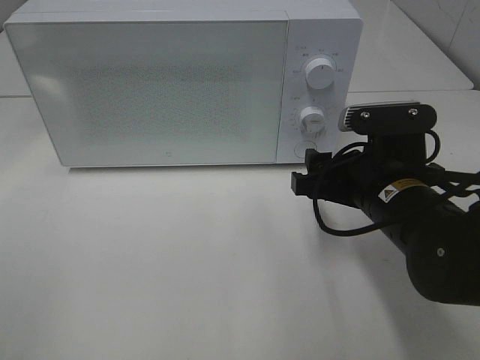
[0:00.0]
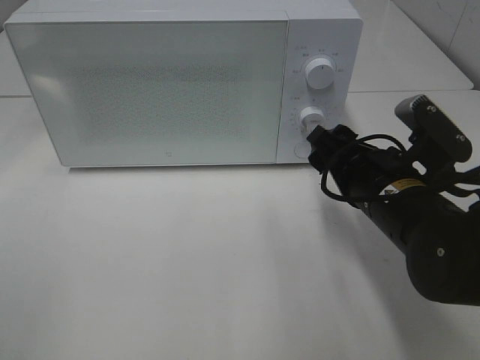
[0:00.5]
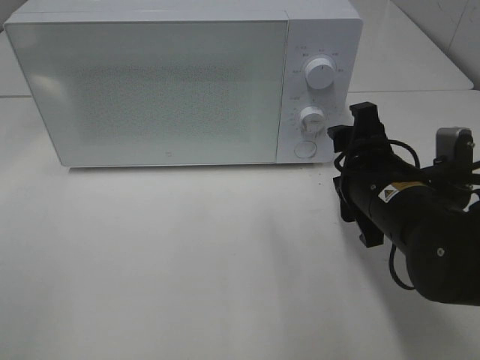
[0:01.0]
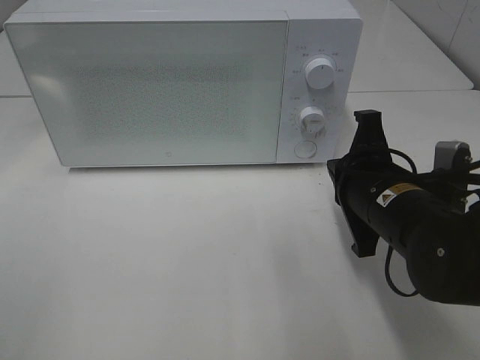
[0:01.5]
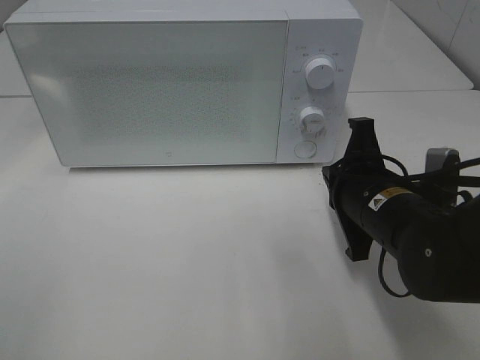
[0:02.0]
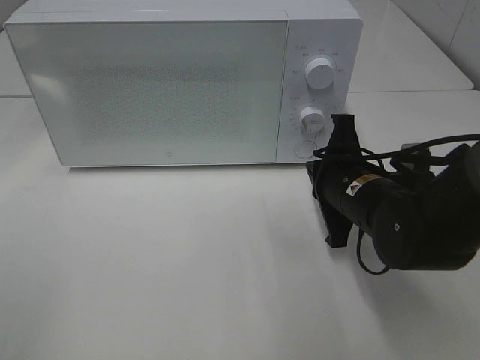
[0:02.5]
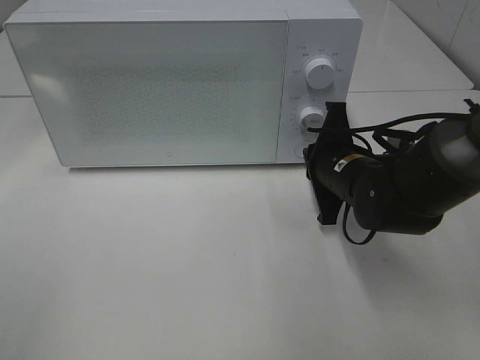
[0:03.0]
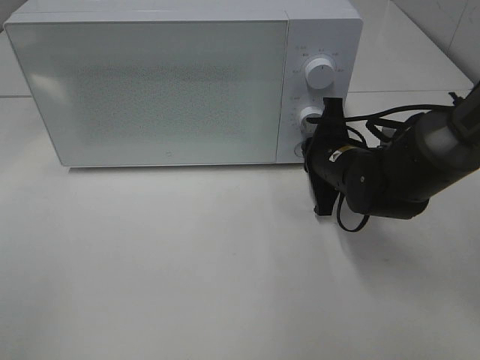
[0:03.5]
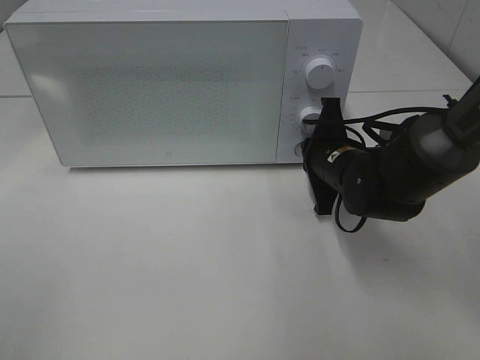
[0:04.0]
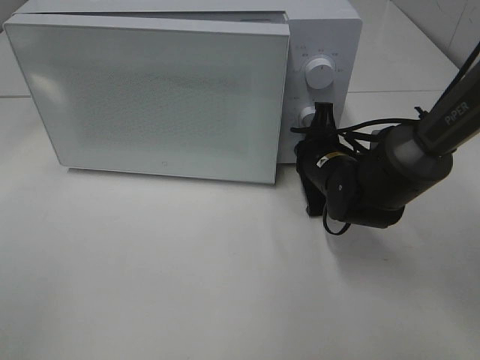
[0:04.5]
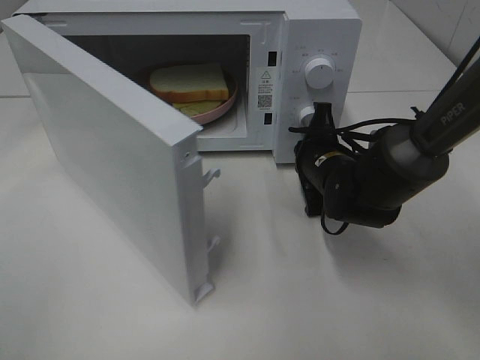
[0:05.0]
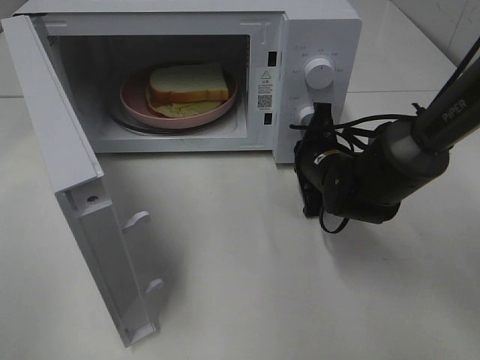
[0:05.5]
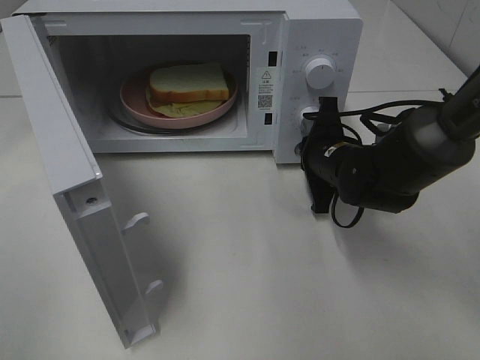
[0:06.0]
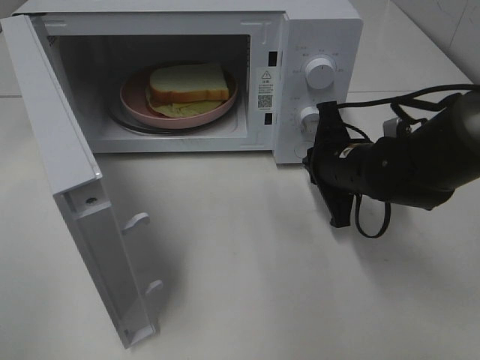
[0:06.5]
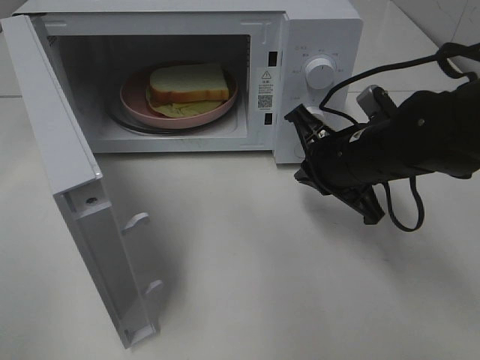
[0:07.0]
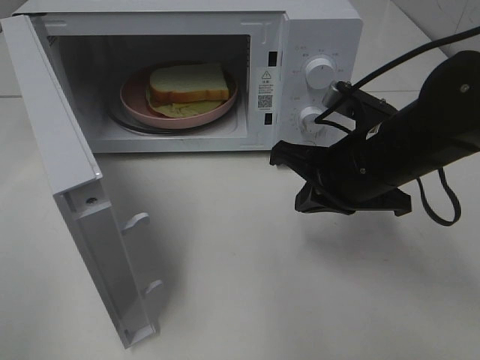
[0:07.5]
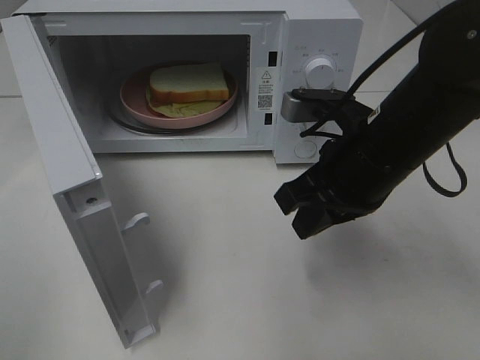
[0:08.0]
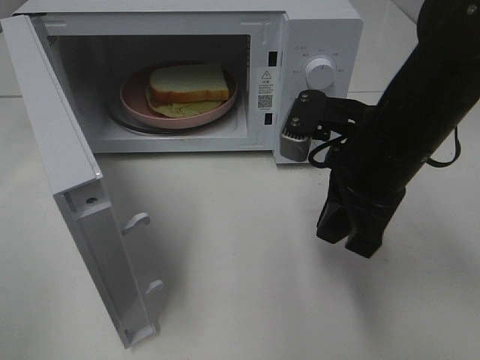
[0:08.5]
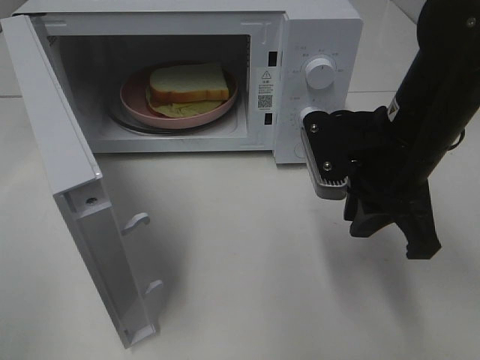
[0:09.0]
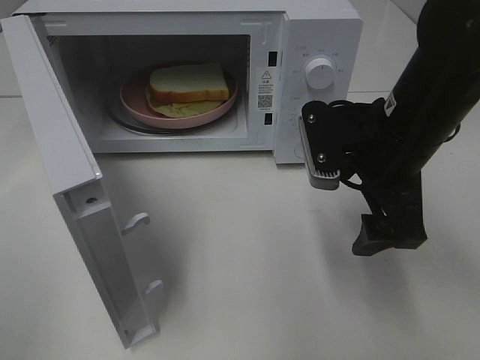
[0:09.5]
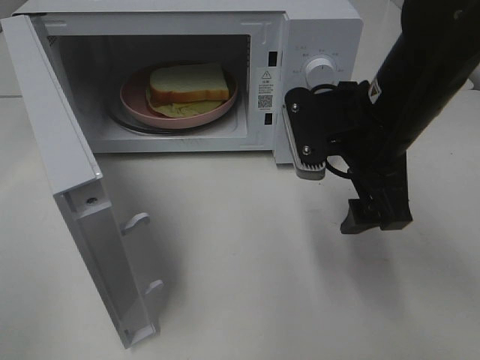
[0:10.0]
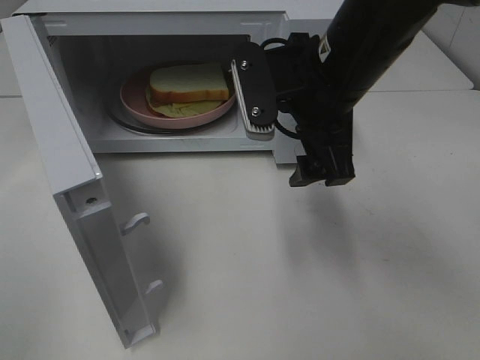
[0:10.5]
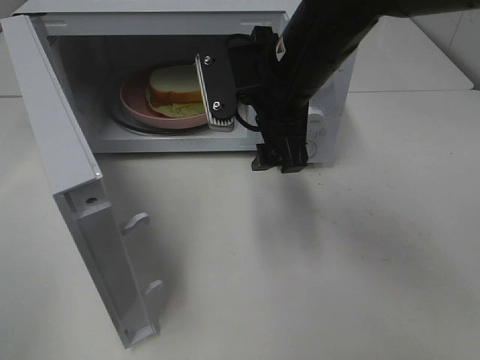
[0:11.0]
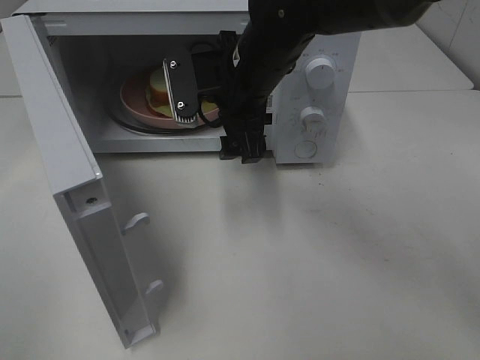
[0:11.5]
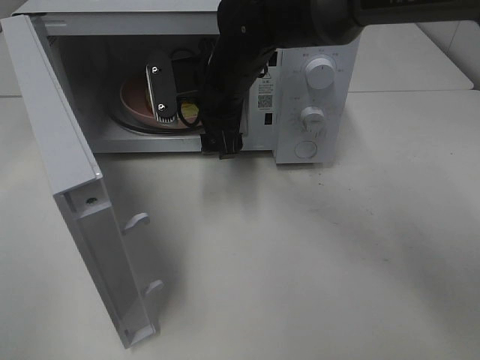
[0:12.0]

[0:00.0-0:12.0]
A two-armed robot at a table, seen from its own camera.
Task of the whole recording: Heat Sandwich.
Step, 0:00.0 to 0:06.0: Right hand: press the switch.
0:00.0 to 0:02.0: The right gripper closes.
0:02.0 to 0:04.0: The right gripper shifts about 10 cm forward.
0:06.0 to 0:08.0: The right gripper goes some 15 cm upward and backward.
0:08.0 to 0:10.0: The right gripper opens its fingers.
0:10.0 to 0:12.0: The right gripper travels to the left and forward by some 20 cm.

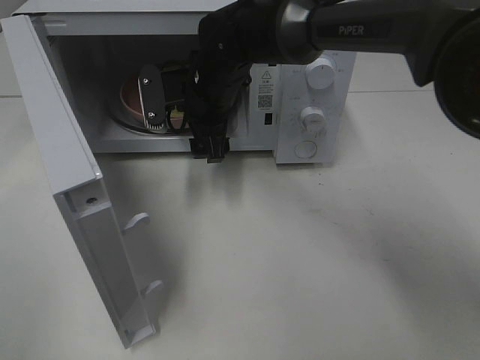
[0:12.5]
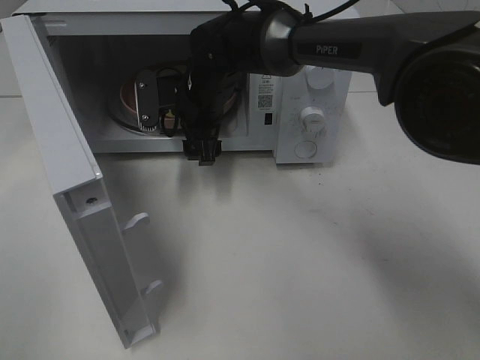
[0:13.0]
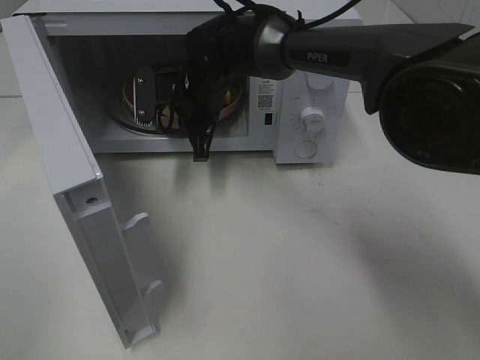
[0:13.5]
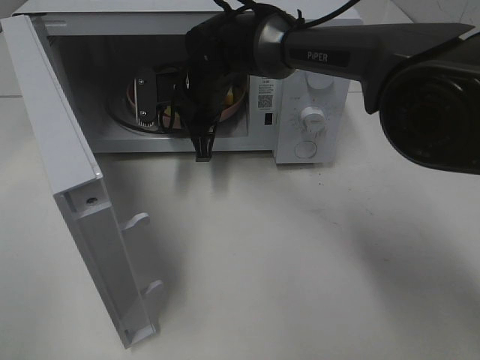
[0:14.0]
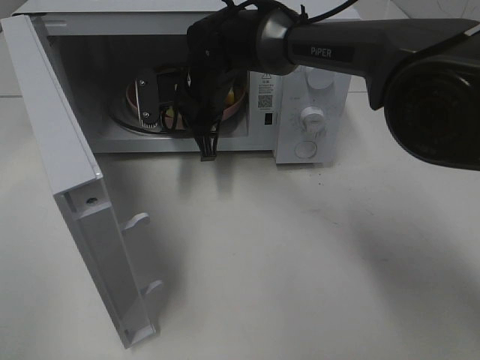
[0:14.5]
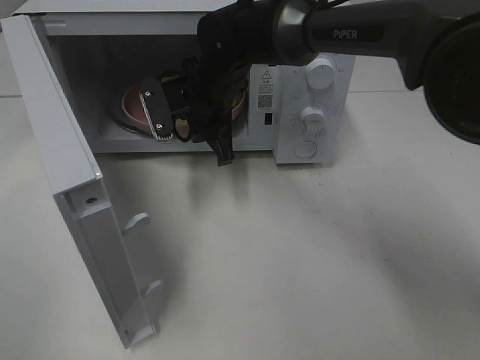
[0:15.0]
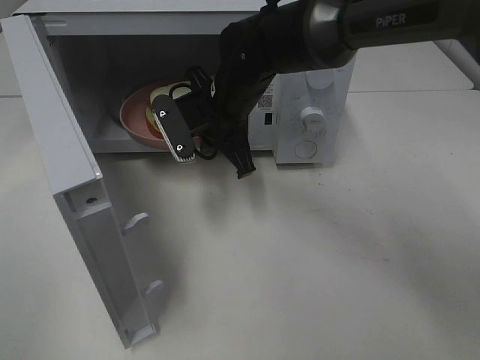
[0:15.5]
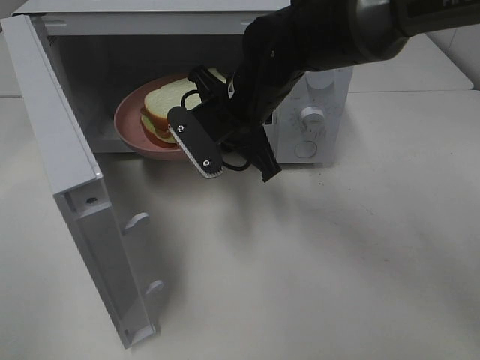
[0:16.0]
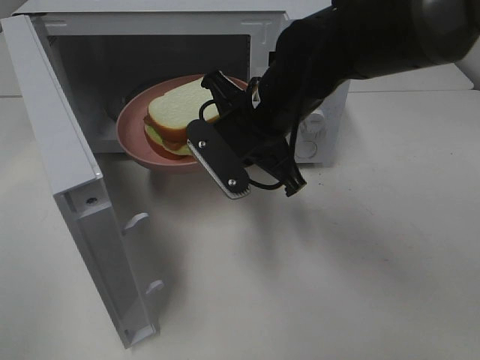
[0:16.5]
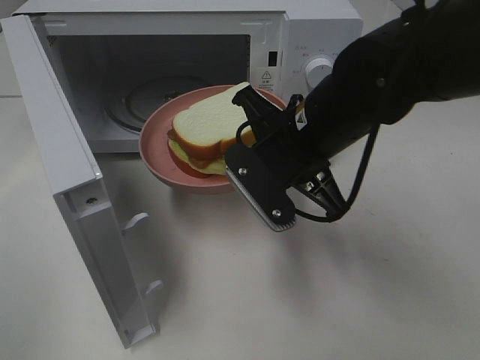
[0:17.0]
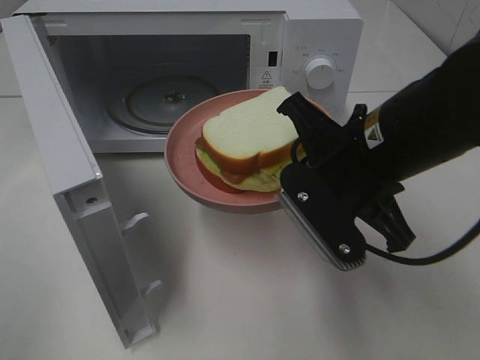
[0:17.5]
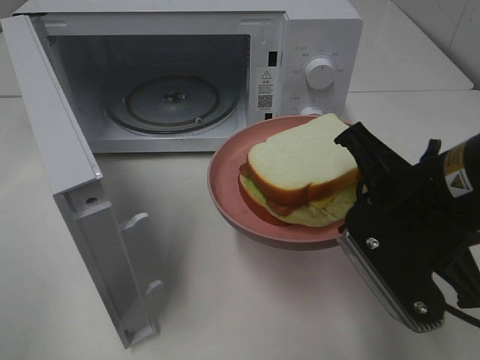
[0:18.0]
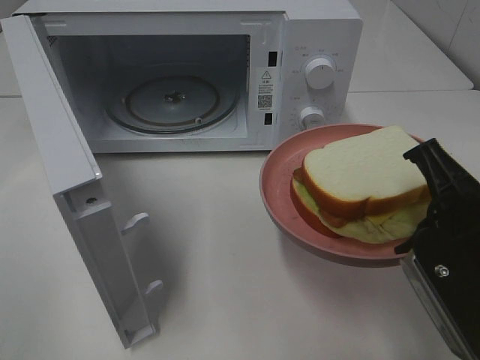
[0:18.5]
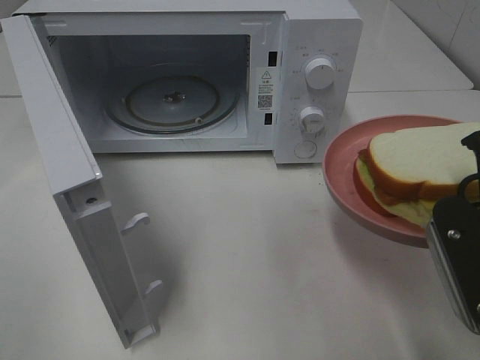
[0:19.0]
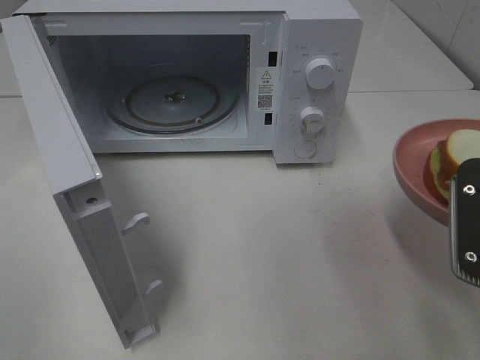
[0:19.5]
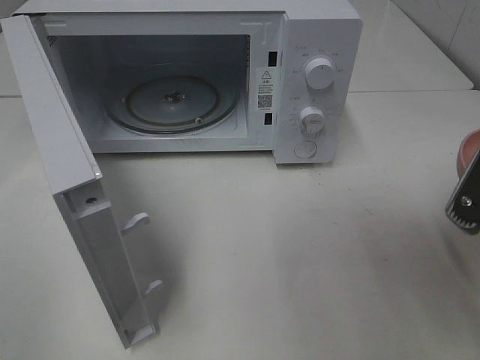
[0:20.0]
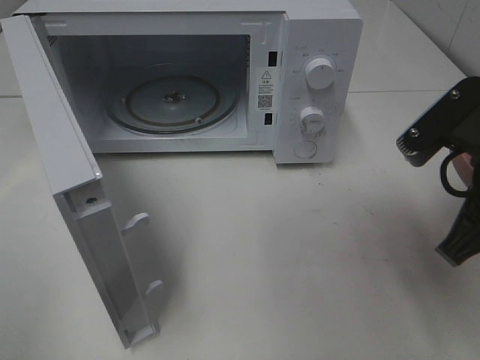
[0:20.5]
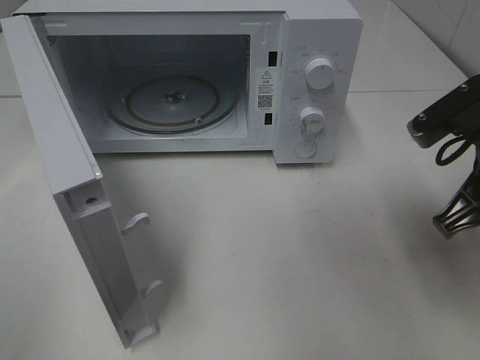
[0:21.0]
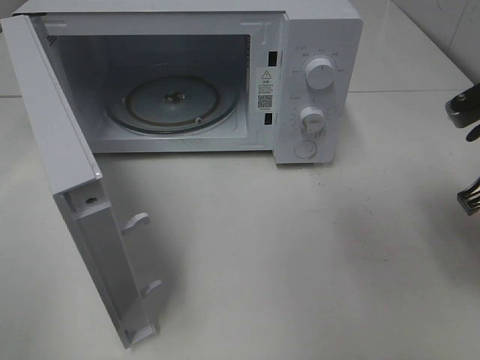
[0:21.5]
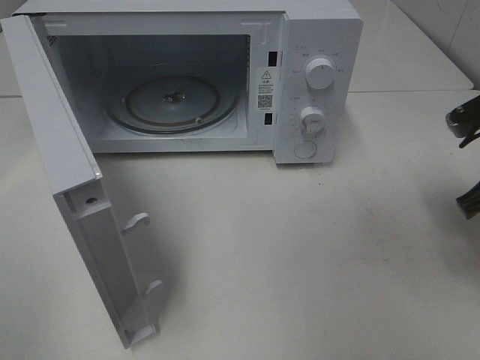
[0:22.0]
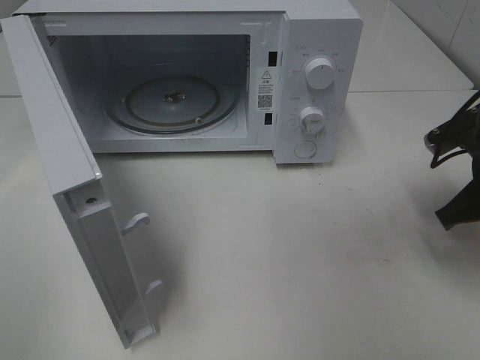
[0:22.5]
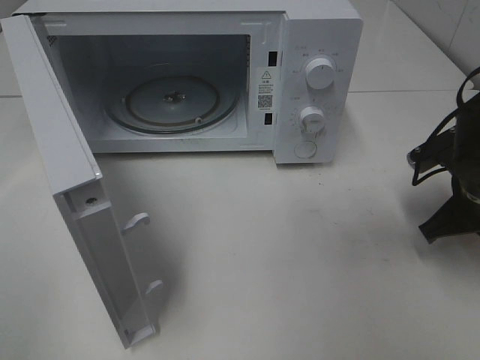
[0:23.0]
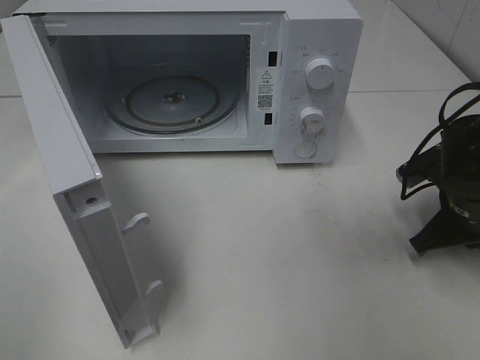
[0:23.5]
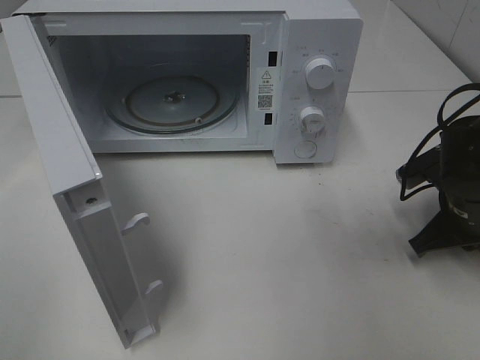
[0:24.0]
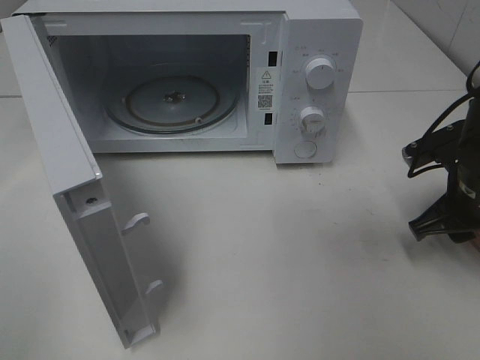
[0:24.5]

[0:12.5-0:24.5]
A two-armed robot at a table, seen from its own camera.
Task of the whole recording: Heat Sandwich.
Step, 0:14.0 to 0:24.0: Right hand: place the plate on the table.
0:12.5 to 0:14.5: The right gripper closes up.
0:14.5 to 0:16.5: The right gripper travels backward and to the right by some 15 cm.
0:16.5 to 0:18.5: The right gripper travels backward and to the right by some 25 cm.
0:20.5 to 0:22.5: The right gripper shifts approximately 15 cm forward, downward and to the right.
0:22.5 to 0:24.5: The right gripper opens up.

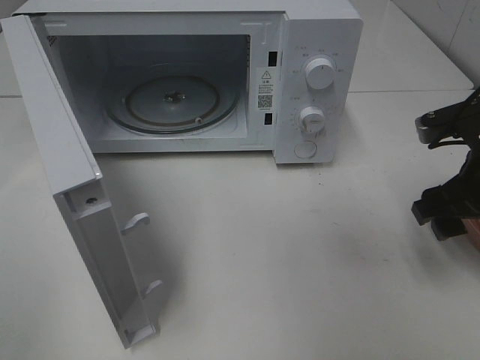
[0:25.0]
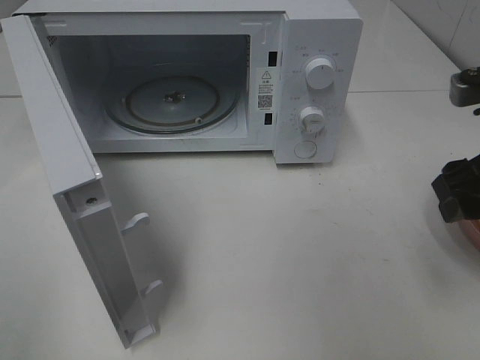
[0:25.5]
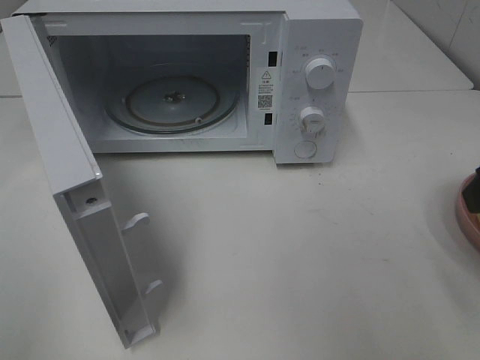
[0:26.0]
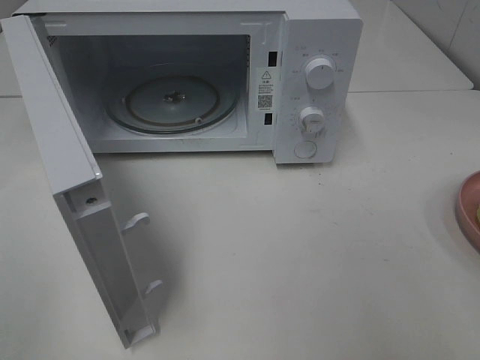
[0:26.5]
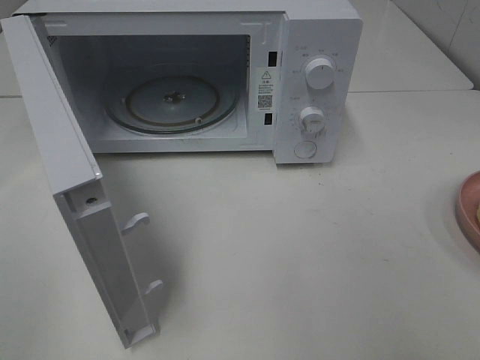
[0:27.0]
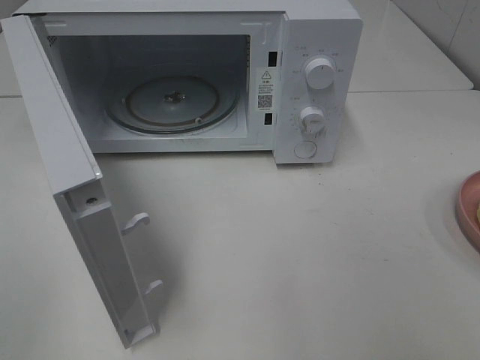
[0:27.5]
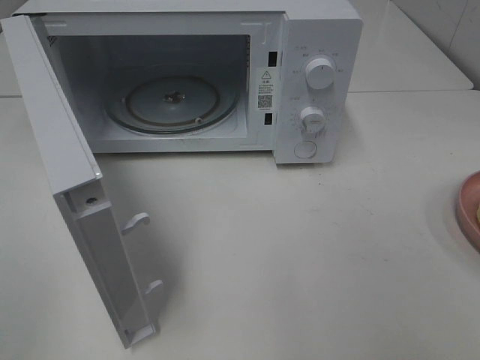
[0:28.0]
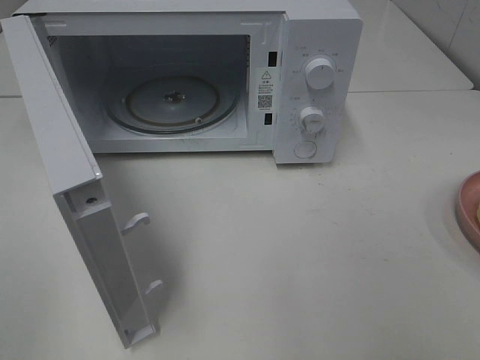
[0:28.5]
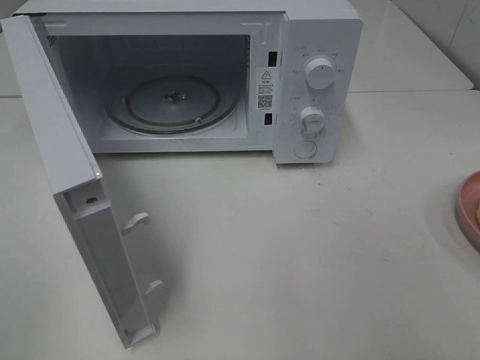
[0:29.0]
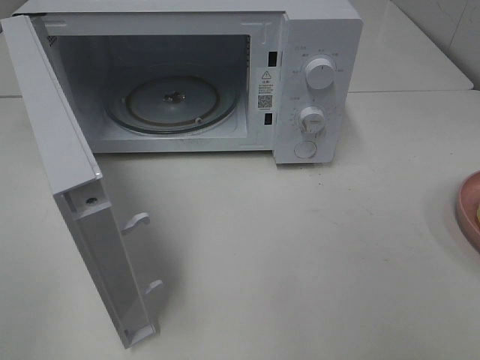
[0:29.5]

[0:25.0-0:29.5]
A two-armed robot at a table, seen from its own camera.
Task of the whole recording: Heat Sandwich.
0:25.0 to 0:27.0: The right gripper goes some 25 cm backward and upward.
